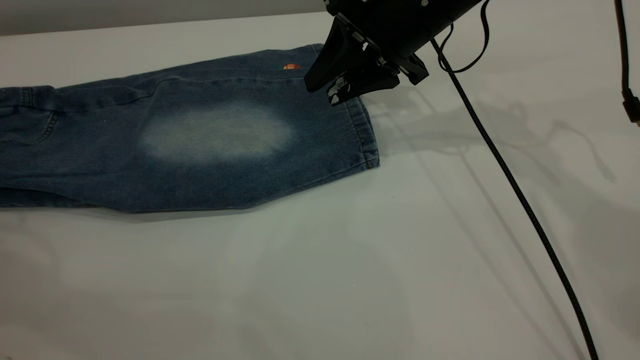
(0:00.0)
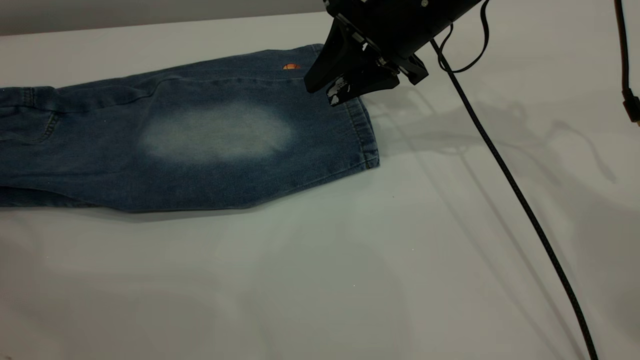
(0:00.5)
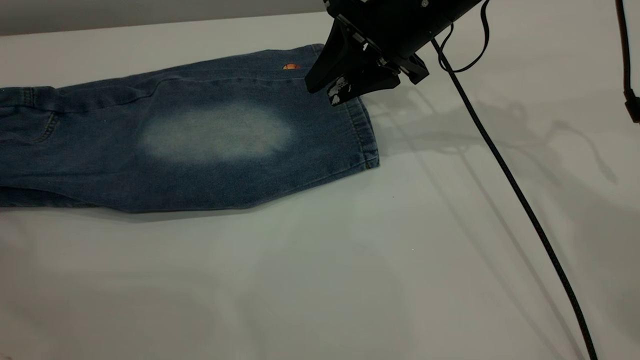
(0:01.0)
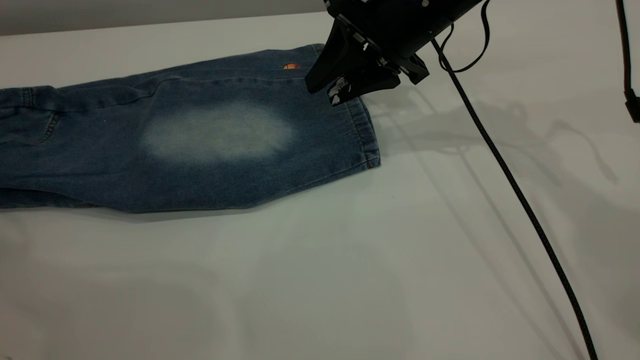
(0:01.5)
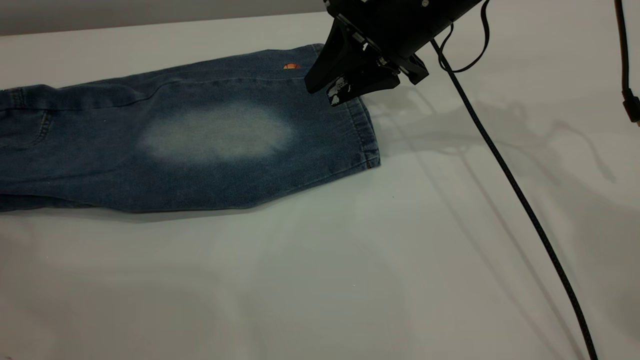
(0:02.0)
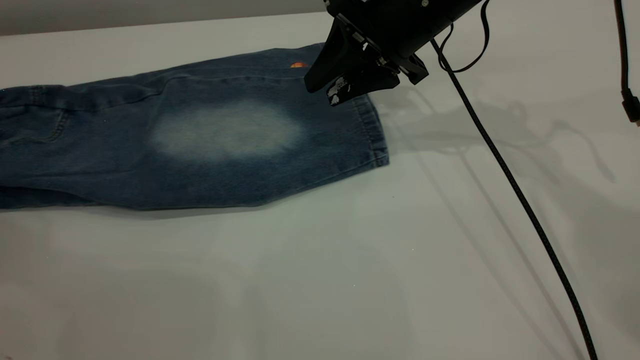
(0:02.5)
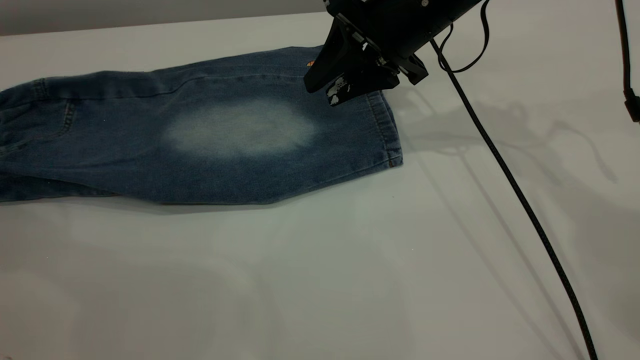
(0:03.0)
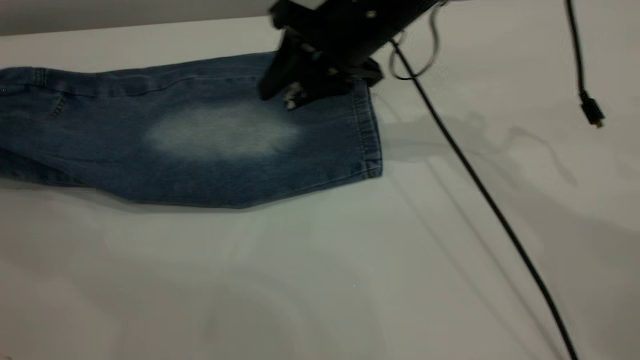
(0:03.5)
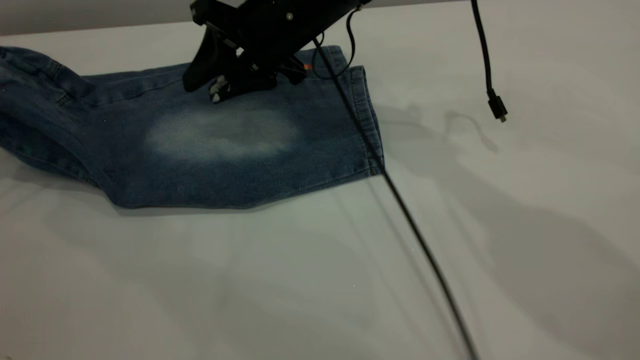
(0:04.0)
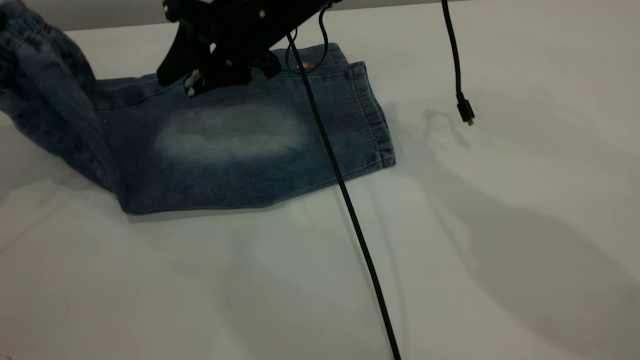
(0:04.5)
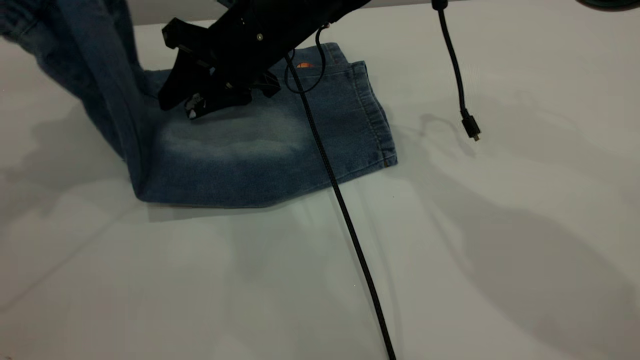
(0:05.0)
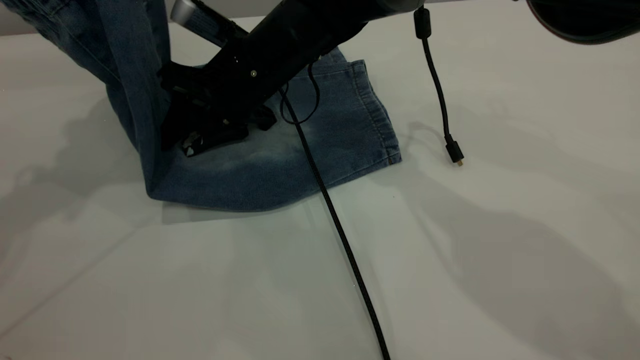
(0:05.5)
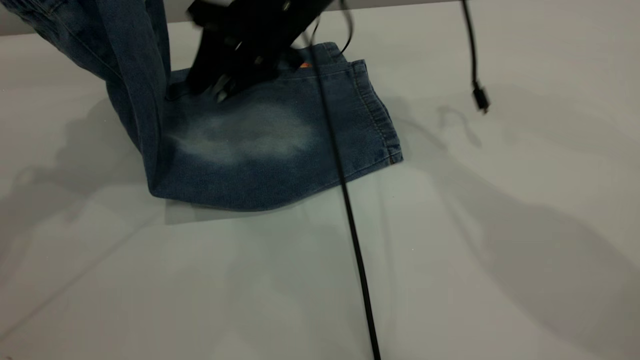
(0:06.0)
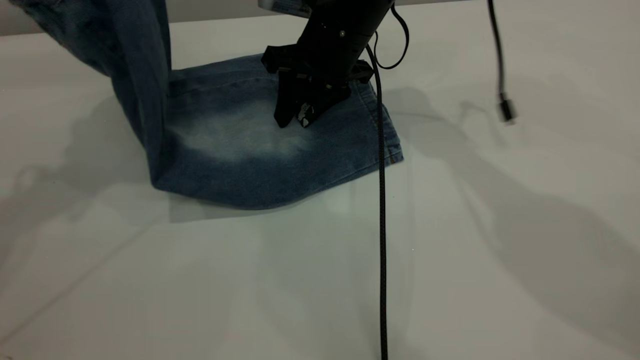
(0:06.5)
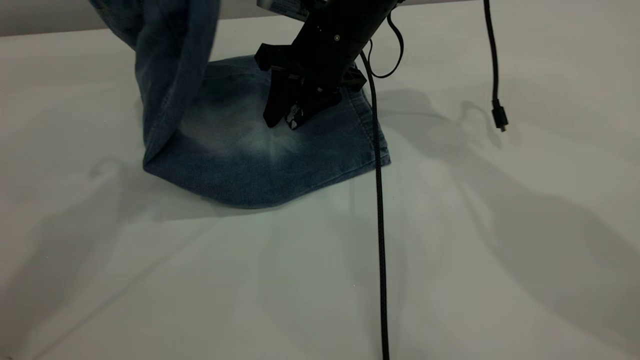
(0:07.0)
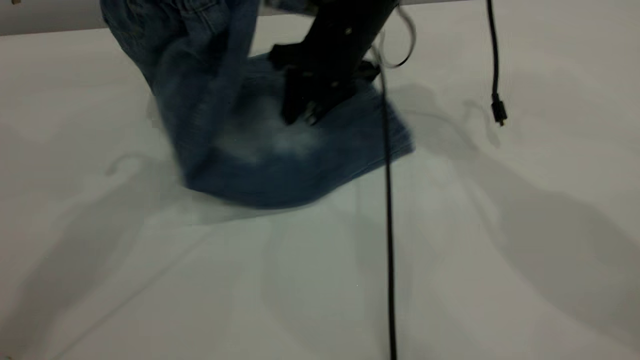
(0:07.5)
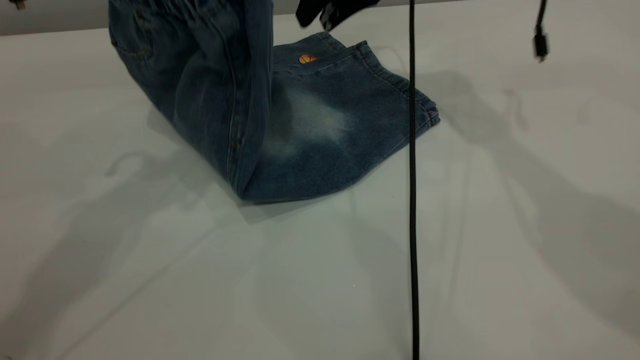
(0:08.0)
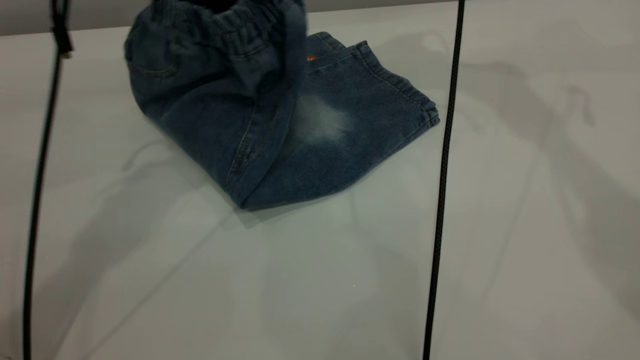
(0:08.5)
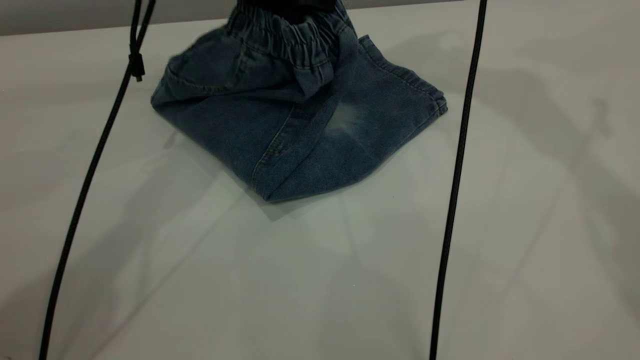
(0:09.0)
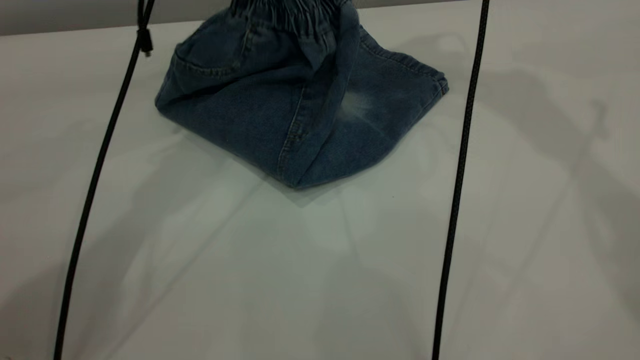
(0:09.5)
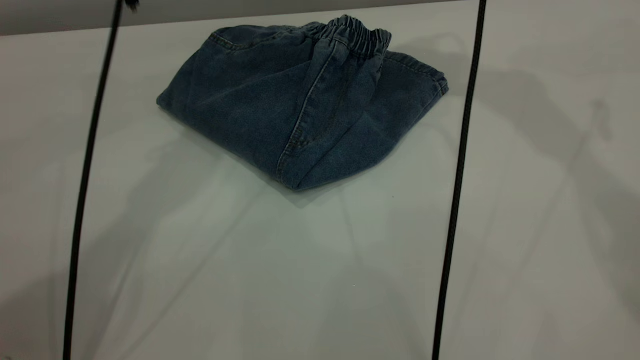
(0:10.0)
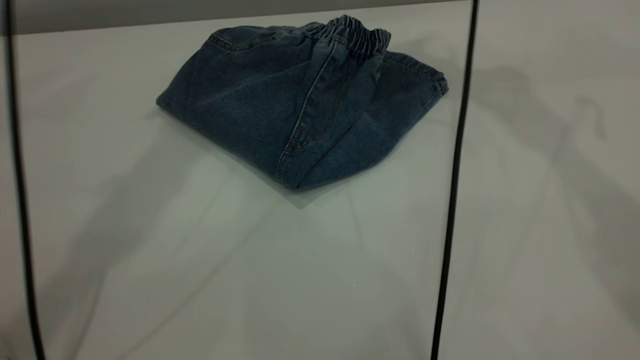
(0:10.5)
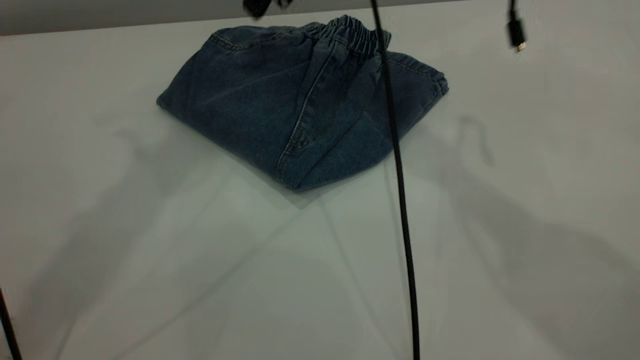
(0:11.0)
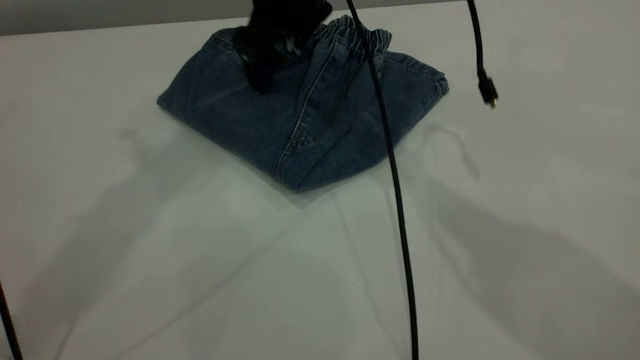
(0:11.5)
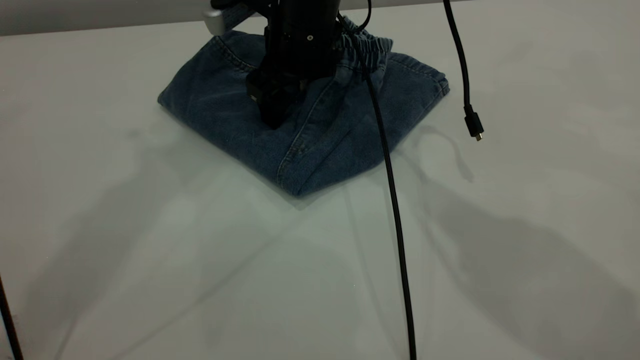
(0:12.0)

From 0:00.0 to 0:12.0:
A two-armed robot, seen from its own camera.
Step, from 0:00.0 to 0:10.5: Fold the pants from left to right.
From 0:02.0 to 0:04.0: The left gripper is displaced upward and to the right by some 15 cm, and closes, while the right gripper is displaced to the left by about 10 cm.
From 0:04.0 to 0:06.0: The left gripper goes roughly 15 cm to the right and upward.
From 0:06.0 to 0:08.0: The right gripper travels to the right and upward by roughly 10 cm; the left gripper is displaced to the right by approximately 10 cm.
From 0:08.0 to 0:10.0: The left gripper is displaced forward and to the right by some 10 cm, and opens up, while the right gripper goes some 15 cm upward and to the right.
From 0:10.0 to 0:12.0: The left gripper is displaced upward by about 20 cm. The right gripper shifts roughly 30 cm downward and to the left, and opens up.

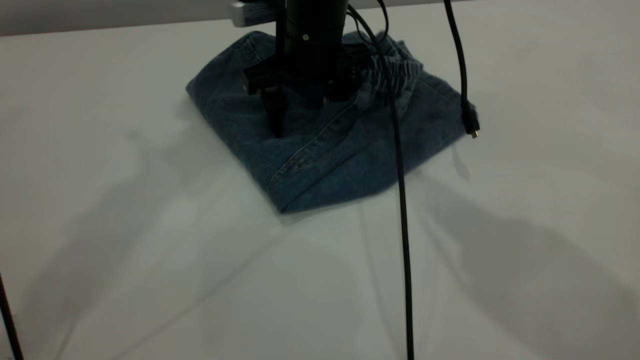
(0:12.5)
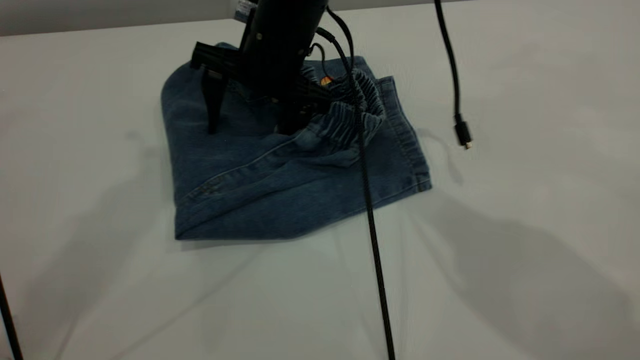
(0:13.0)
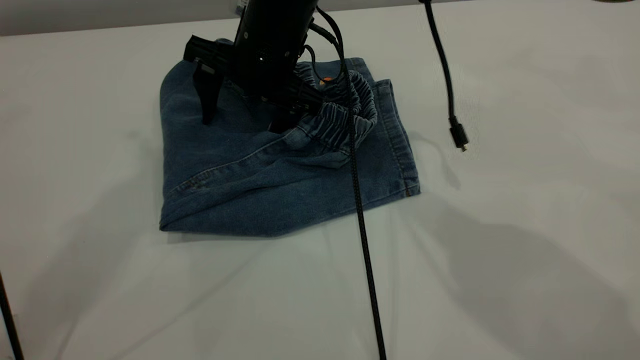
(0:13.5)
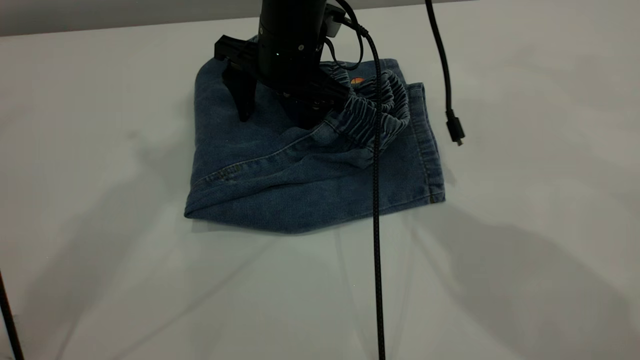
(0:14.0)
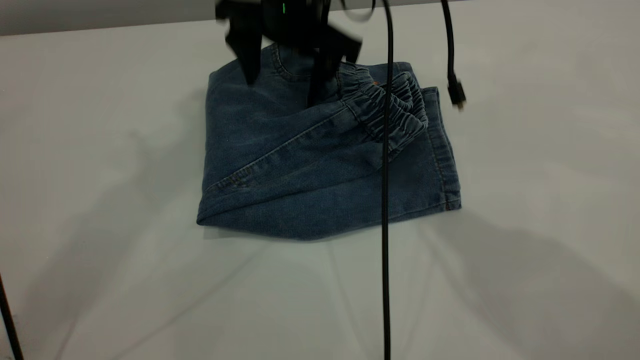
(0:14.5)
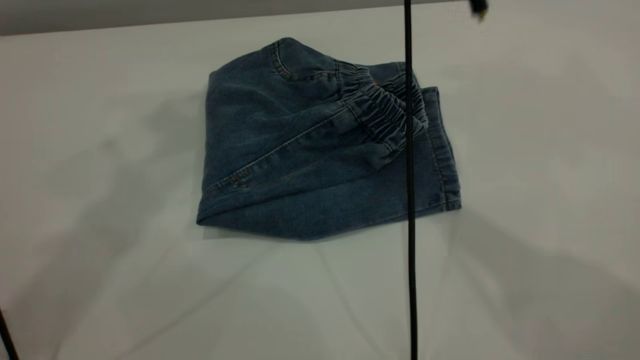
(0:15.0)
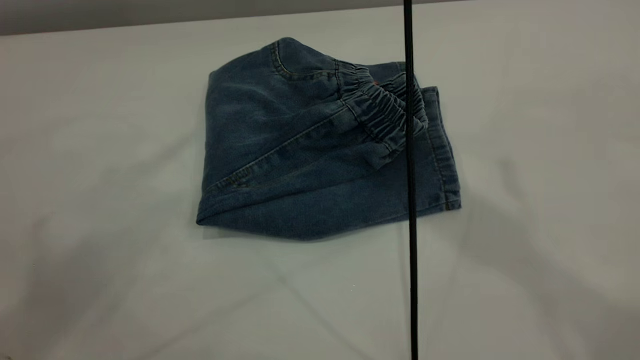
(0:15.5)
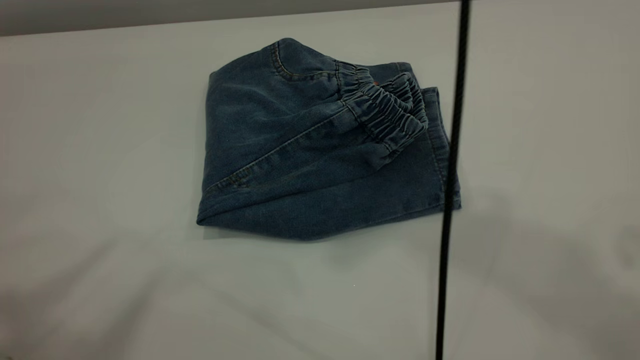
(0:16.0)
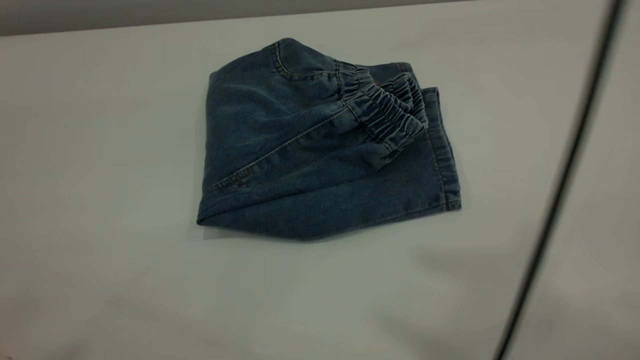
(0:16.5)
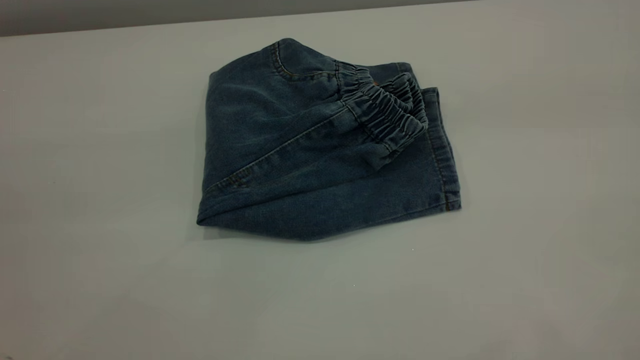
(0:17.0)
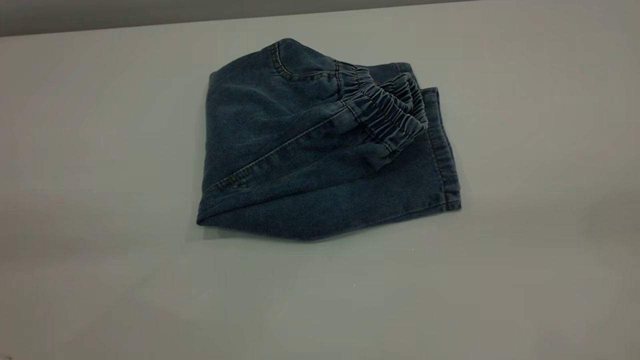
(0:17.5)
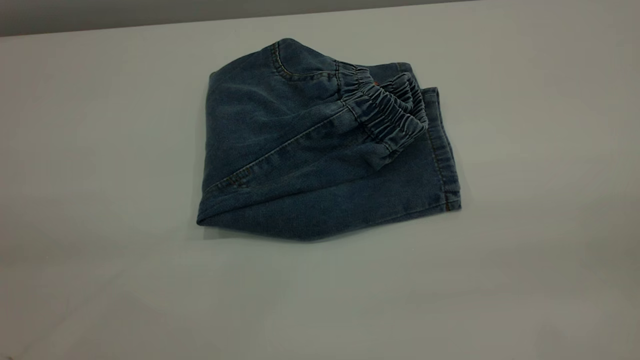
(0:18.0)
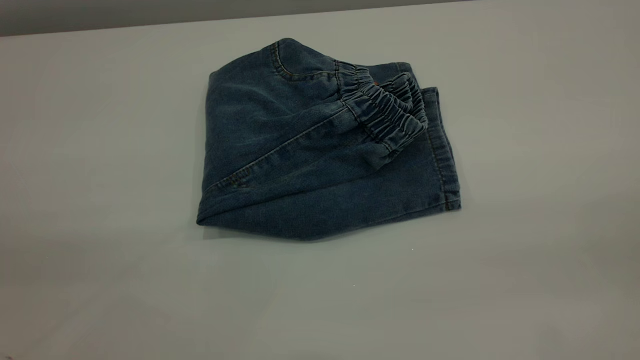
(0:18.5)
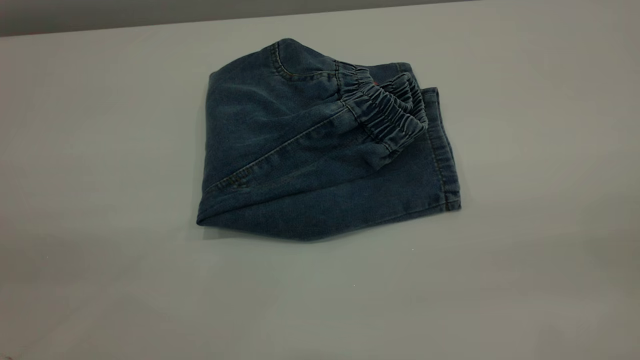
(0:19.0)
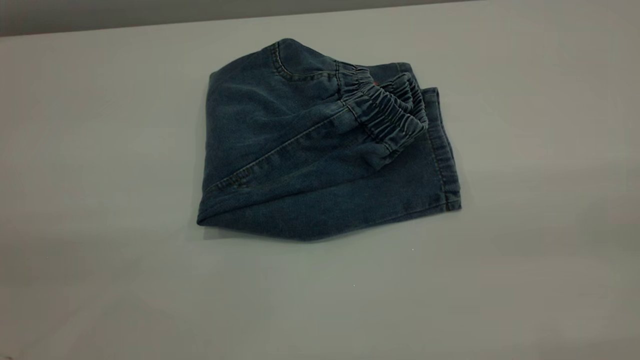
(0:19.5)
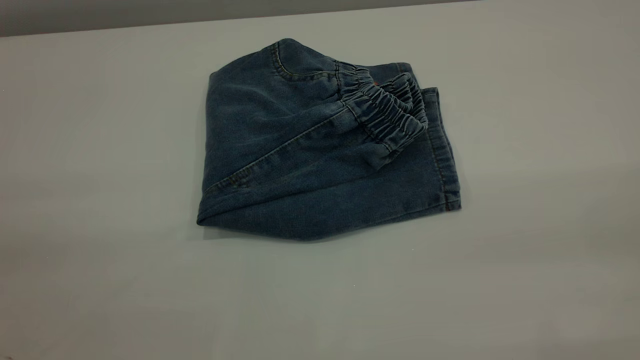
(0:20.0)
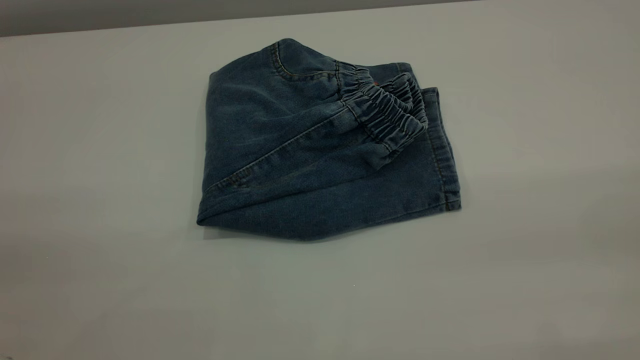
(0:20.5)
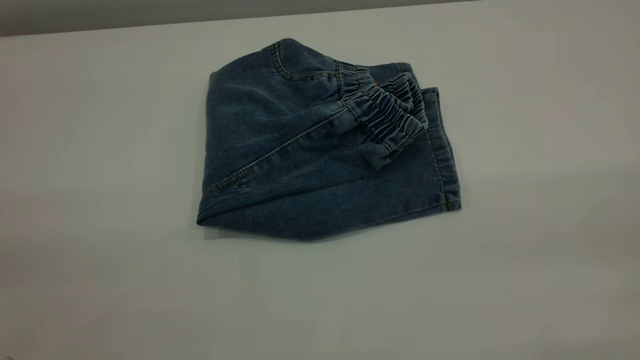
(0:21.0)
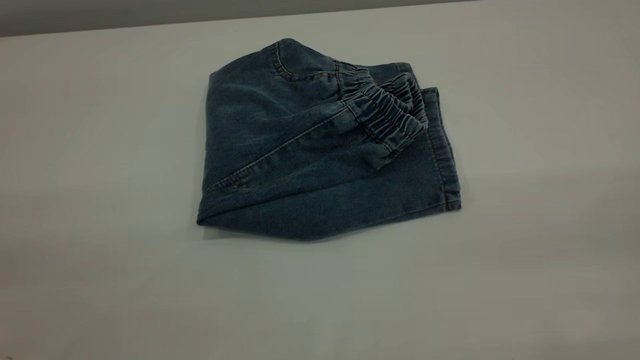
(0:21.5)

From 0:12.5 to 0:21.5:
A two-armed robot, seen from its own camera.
From 0:12.5 to 0:14.5: The right gripper goes roughly 5 cm upward.
From 0:14.5 to 0:17.0: The left gripper moves backward, some 35 cm, while the right gripper goes some 60 cm backward, upward and to the right.
